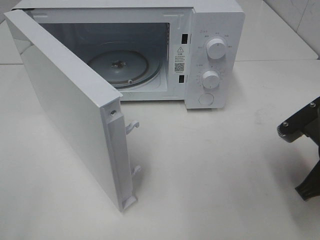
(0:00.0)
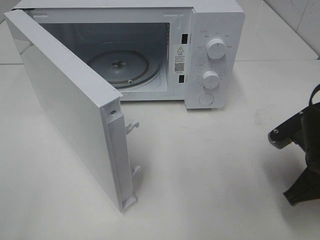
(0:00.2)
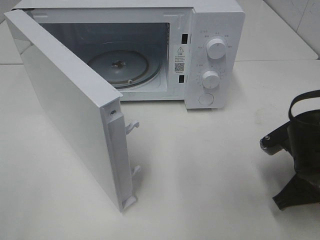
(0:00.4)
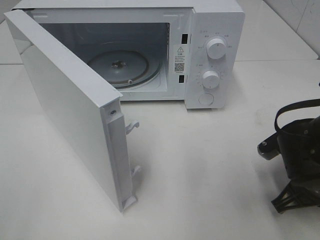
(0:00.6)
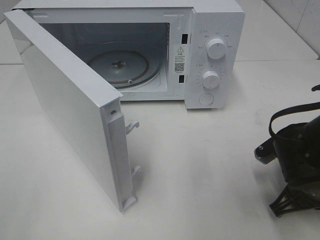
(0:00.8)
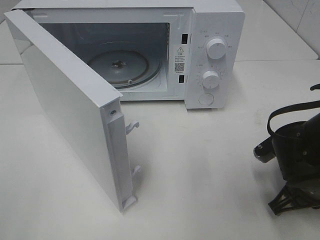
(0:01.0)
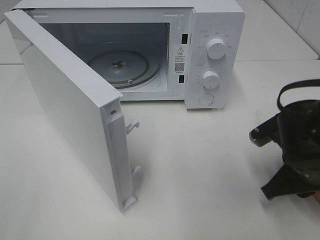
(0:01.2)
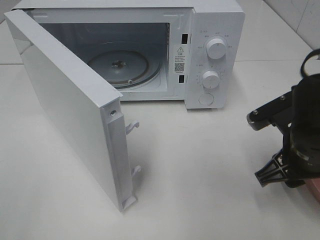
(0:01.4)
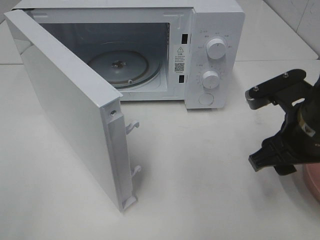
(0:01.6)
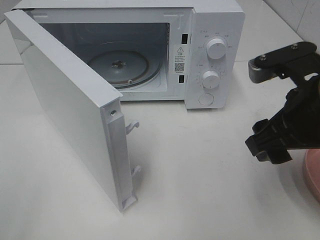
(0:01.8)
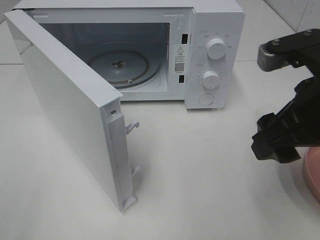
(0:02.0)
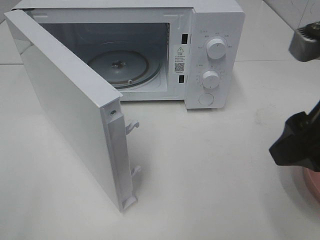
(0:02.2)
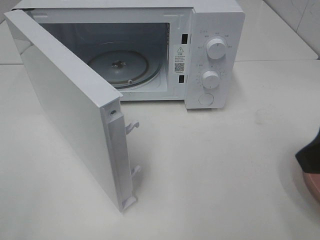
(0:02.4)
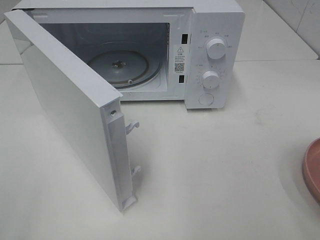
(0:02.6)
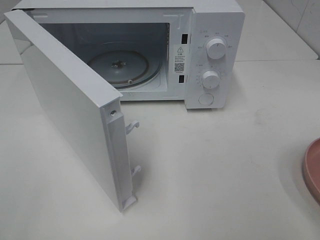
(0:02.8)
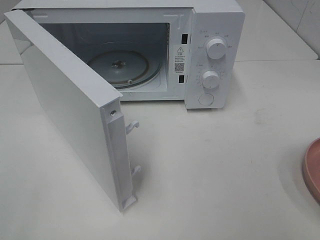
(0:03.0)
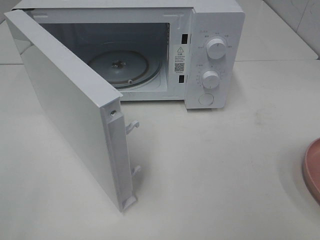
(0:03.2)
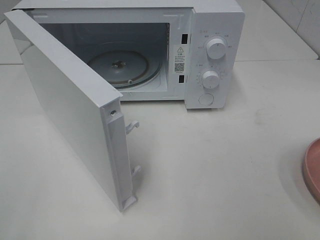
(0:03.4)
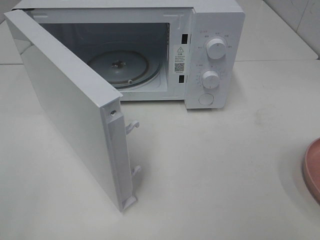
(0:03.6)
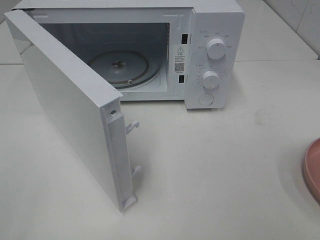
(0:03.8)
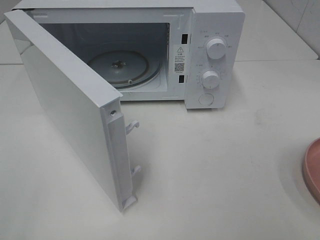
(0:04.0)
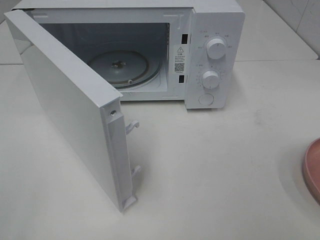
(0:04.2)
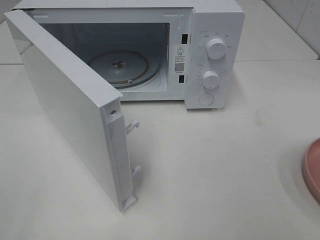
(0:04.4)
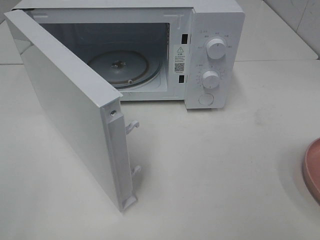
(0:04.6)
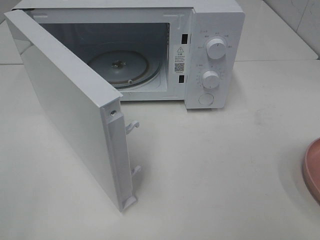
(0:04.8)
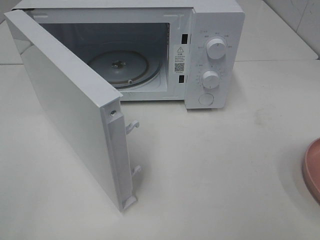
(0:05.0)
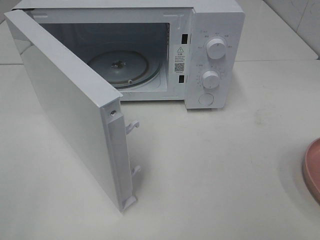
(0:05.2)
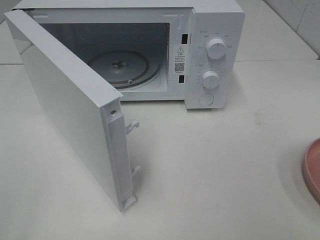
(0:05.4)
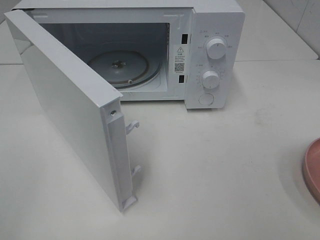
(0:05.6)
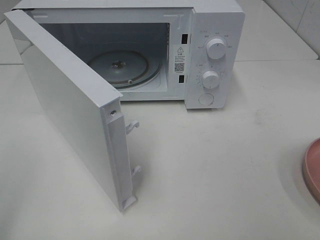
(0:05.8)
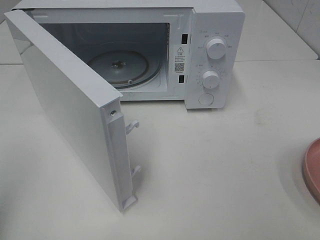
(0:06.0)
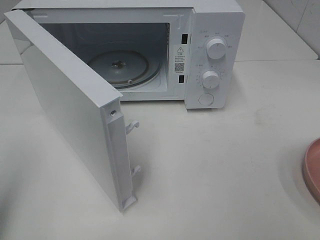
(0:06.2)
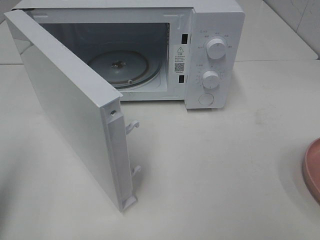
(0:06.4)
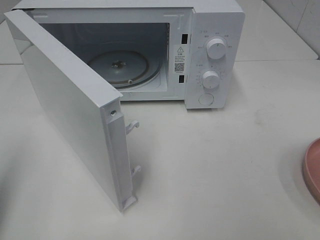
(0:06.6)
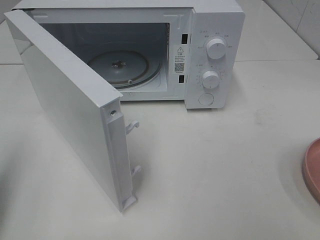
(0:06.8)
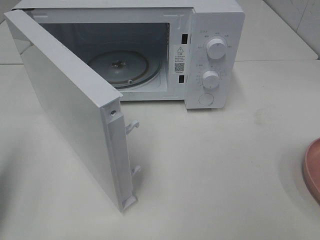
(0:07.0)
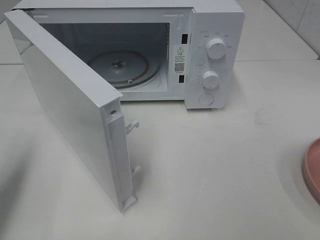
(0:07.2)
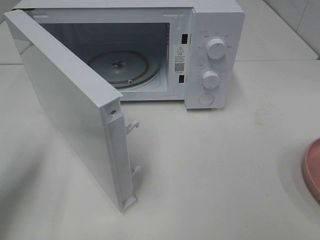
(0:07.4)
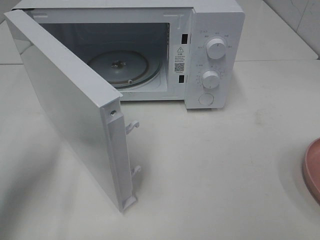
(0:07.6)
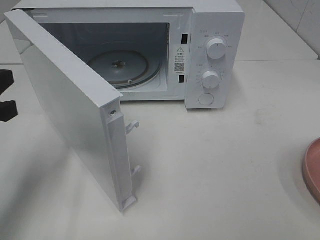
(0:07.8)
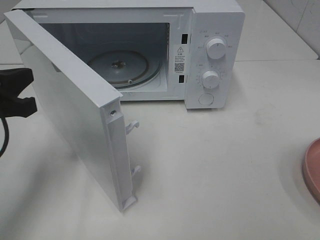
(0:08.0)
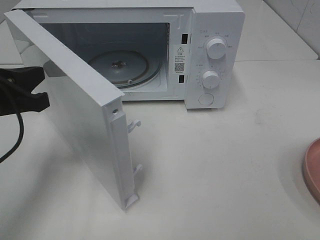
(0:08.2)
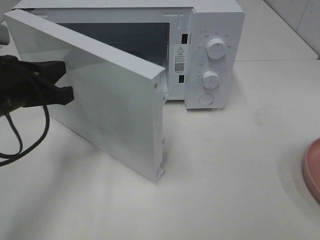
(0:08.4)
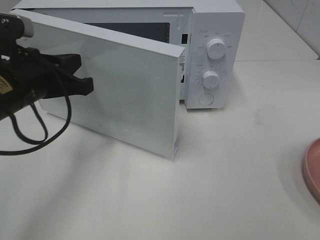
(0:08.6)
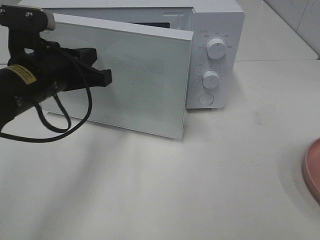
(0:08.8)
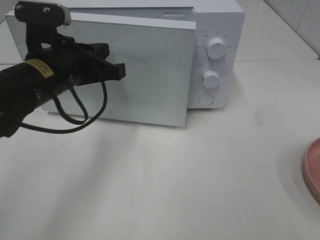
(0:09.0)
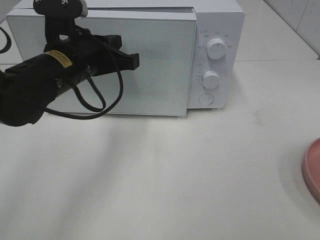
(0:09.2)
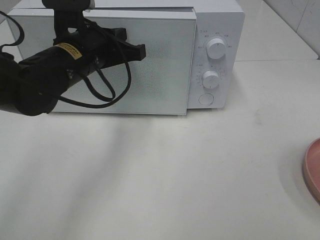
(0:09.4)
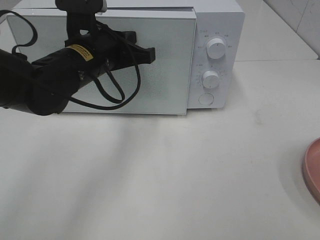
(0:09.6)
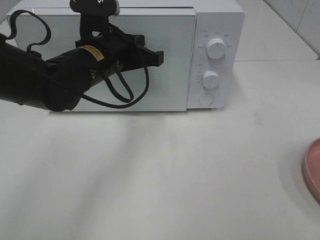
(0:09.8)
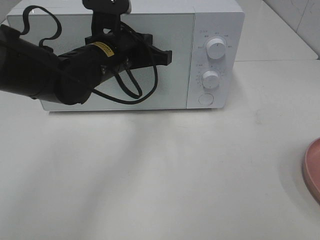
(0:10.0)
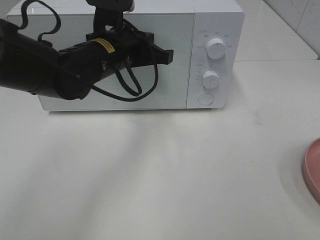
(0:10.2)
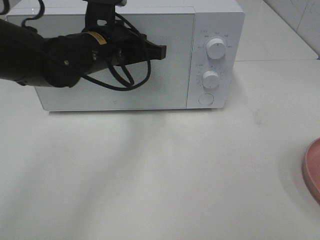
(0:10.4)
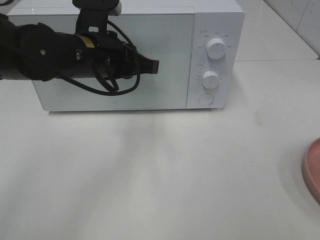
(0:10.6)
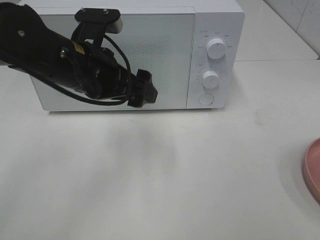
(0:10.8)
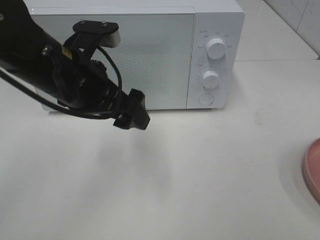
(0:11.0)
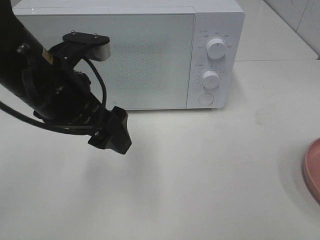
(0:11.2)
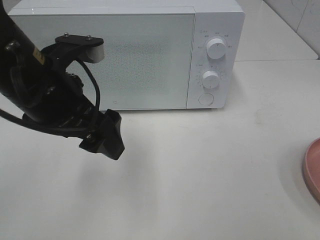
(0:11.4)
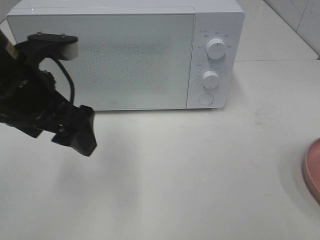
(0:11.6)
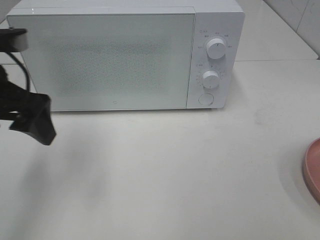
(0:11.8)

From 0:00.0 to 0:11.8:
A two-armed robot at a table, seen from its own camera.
Task of the whole recording: Heat the burger.
Step, from 0:01.4 to 0:10.4: Left hand: close the microwave door.
From 0:00.0 to 0:01.4: The right gripper opens up.
From 0:01.4 to 0:03.0: The right gripper travels backward, upward and to the right by approximately 25 cm.
From 0:06.0 to 0:07.4: The left gripper moves forward and downward, approximately 15 cm.
From 0:07.4 to 0:08.8: The left gripper heads to the right and forward, covering about 20 cm.
From 0:08.8 to 0:10.4: The left gripper is displaced to the right and forward by approximately 10 cm.
From 0:10.4 to 0:11.8: The left gripper is displaced to the left and backward by approximately 20 cm, and opens.

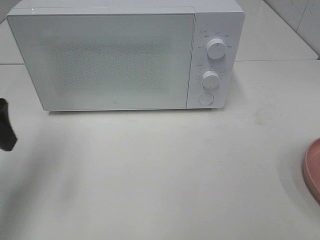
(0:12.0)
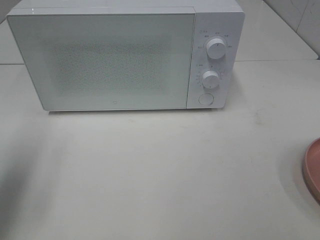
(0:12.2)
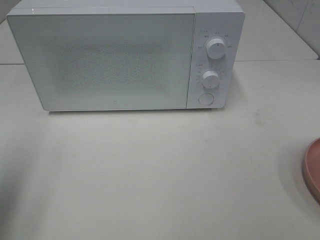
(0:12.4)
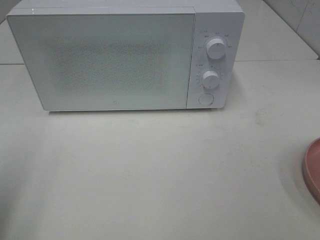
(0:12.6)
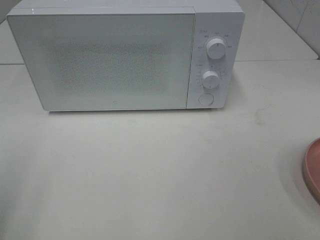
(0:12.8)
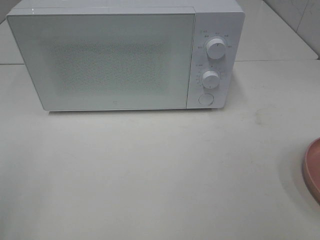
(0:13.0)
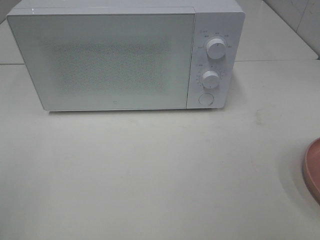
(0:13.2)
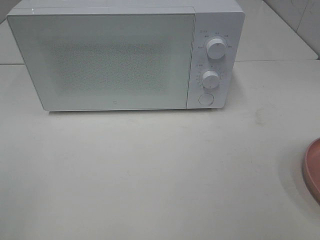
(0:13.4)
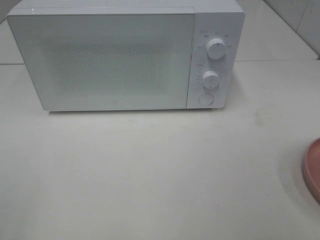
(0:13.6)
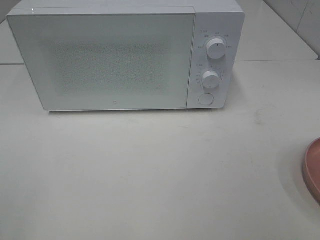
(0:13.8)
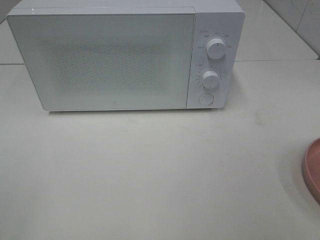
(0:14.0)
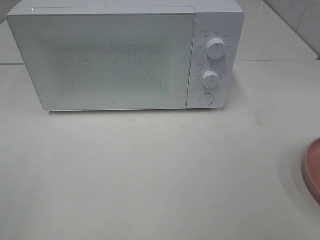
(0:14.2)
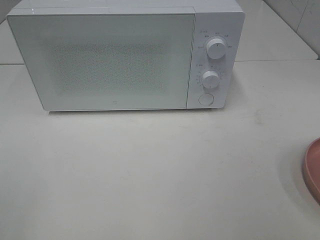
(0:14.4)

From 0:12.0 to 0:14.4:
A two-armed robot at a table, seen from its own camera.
Task of the whole recording: Heat the burger.
From 0:12.0 to 0:13.2: The left gripper travels backward by approximately 20 cm.
